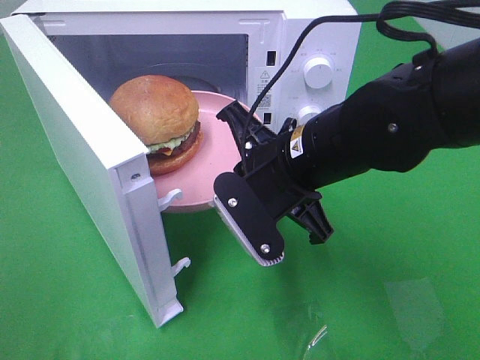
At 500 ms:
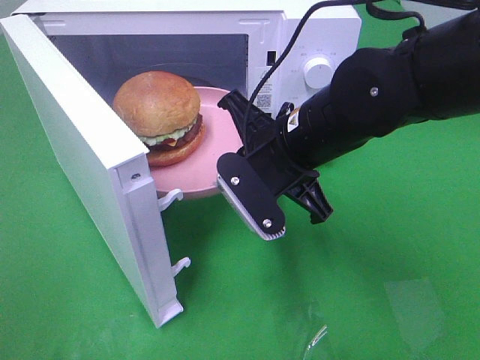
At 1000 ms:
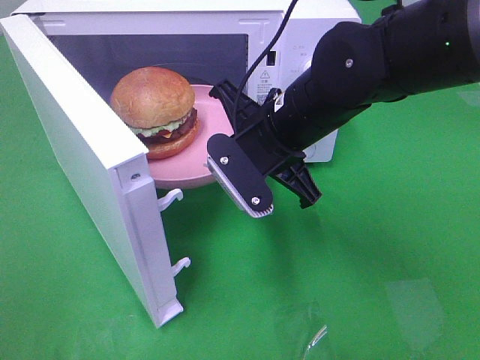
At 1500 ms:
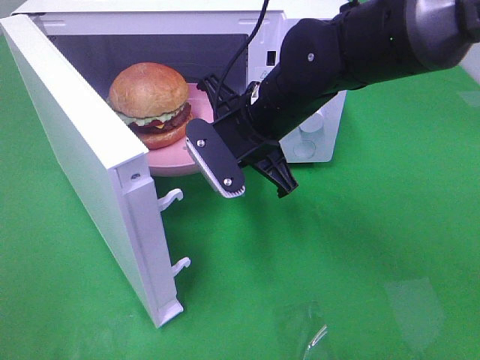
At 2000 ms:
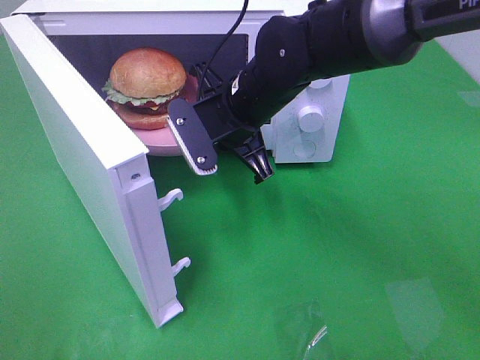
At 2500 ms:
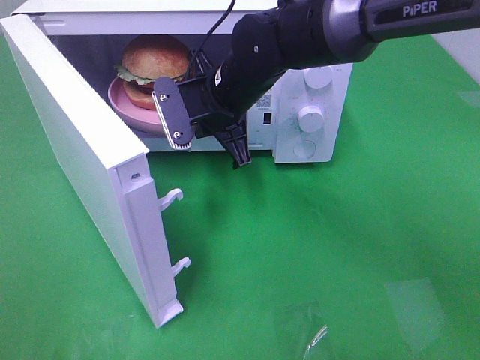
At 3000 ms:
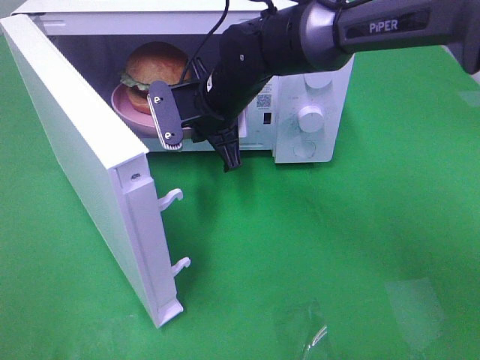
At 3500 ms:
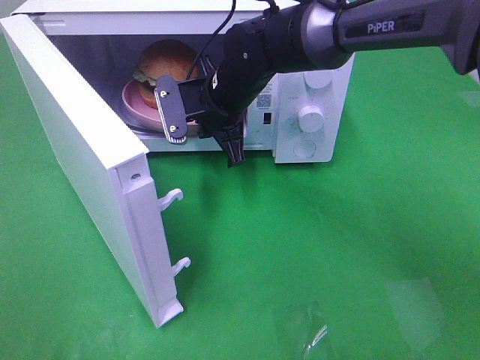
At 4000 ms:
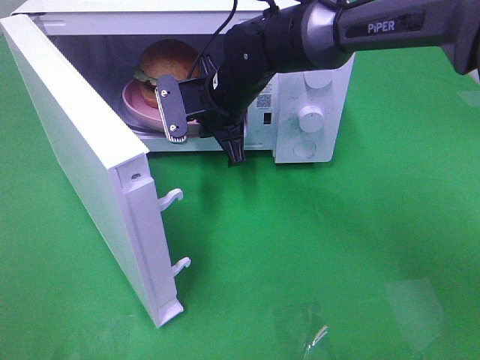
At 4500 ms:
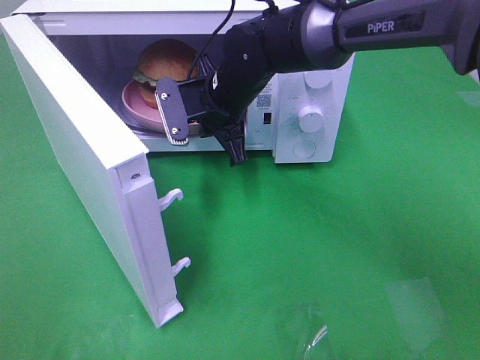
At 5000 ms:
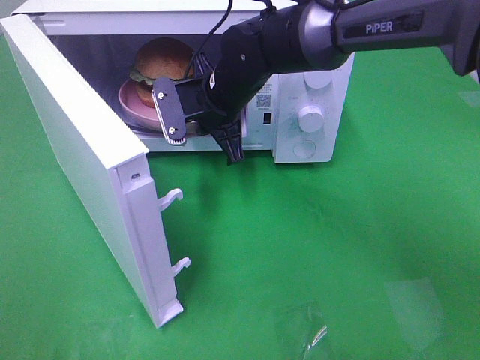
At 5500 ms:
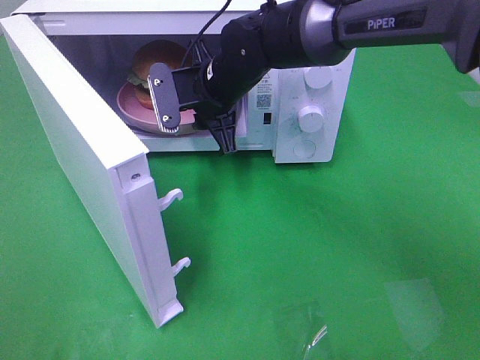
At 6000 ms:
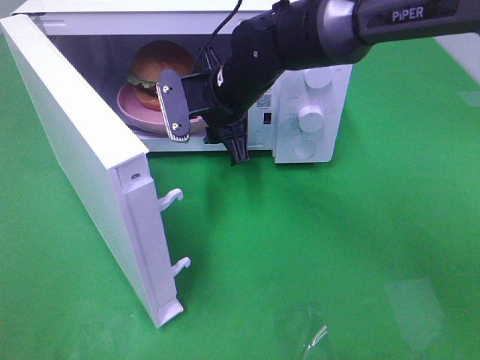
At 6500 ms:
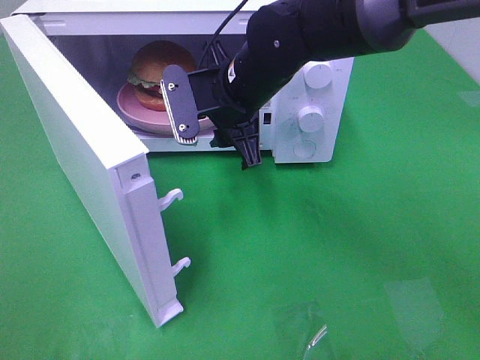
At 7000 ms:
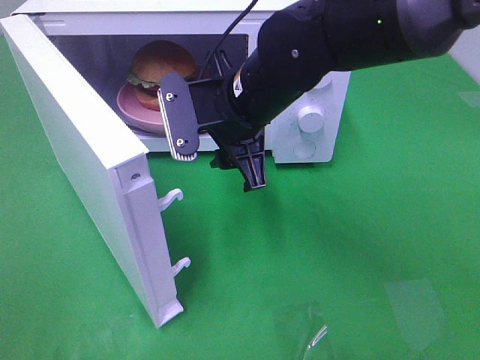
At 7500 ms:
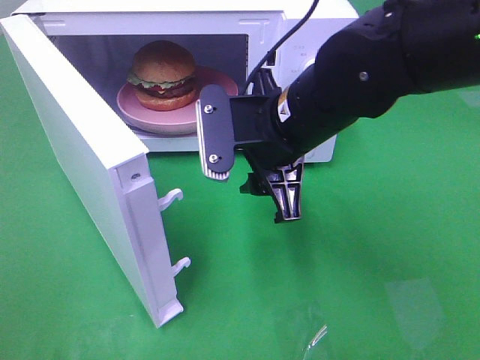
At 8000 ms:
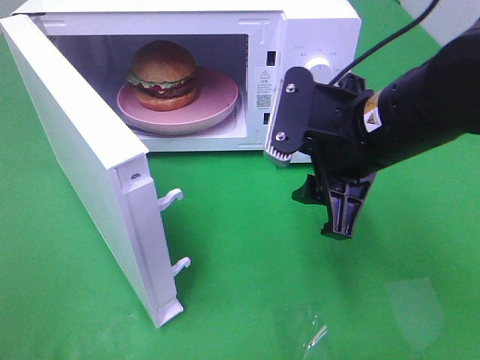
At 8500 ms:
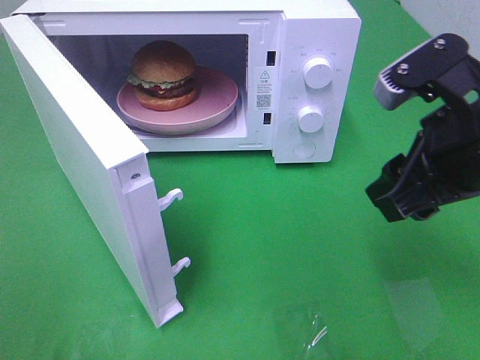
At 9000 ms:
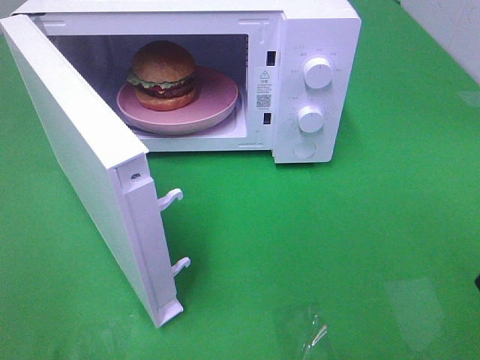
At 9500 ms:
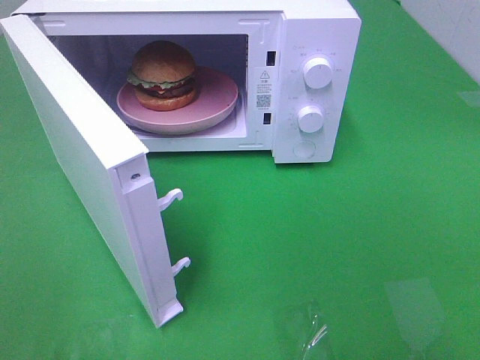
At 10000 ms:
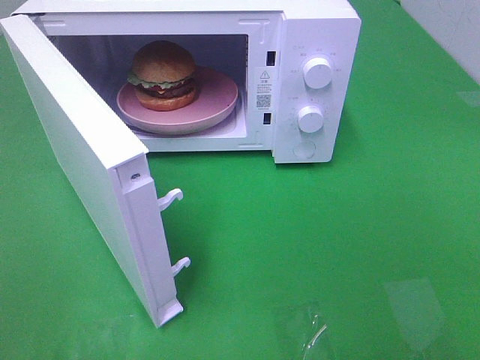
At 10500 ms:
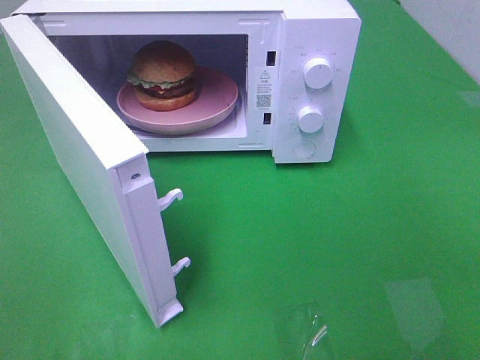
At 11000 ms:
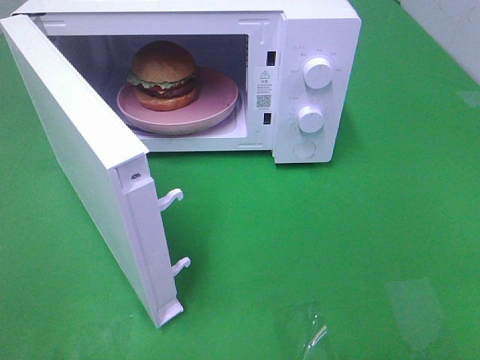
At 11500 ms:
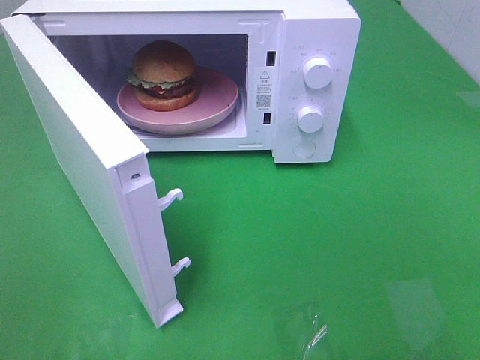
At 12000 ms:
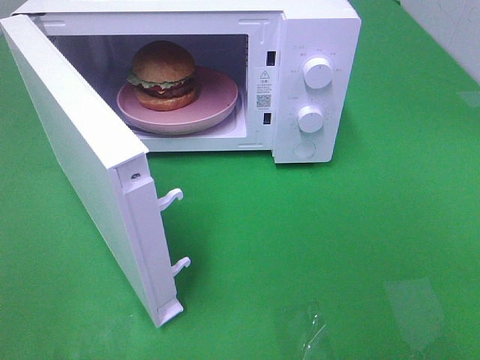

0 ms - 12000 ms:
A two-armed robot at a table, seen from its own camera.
Task of the whole recording: Heat the burger.
Step, 0 ms - 5000 ms: Right hand: place the plate in the microwave.
0 ms - 2000 ms: The right gripper heads forward, covering approximately 10 cm.
2000 ms - 4000 ms: The right gripper goes some 5 cm forward.
4000 ms - 6000 ms: The right gripper opens its fingers.
6000 ms - 8000 ms: The right gripper heads backward and to the right, covering roughly 20 cm.
8000 ms - 10000 ms: The right gripper goes about 30 cm backward and to the right.

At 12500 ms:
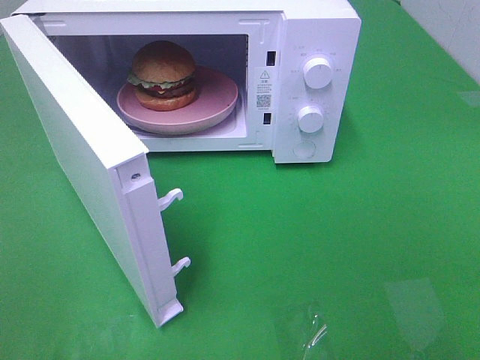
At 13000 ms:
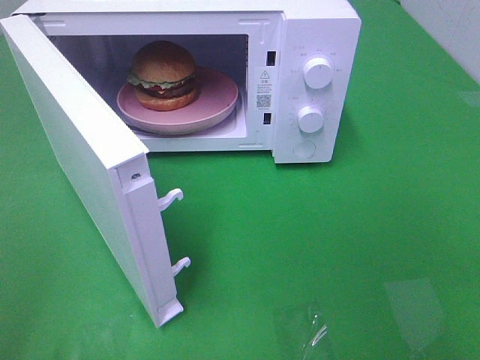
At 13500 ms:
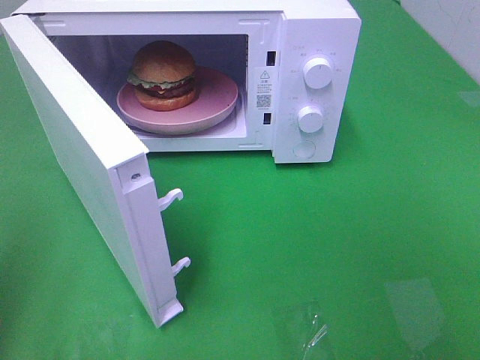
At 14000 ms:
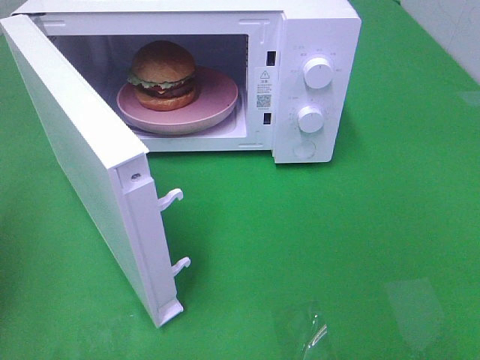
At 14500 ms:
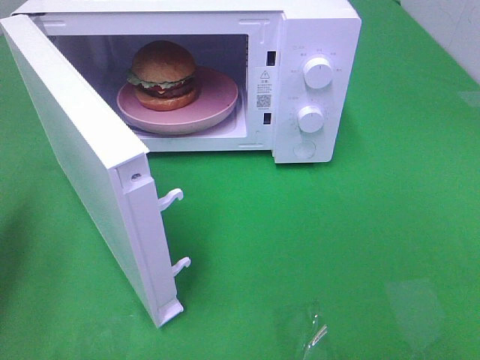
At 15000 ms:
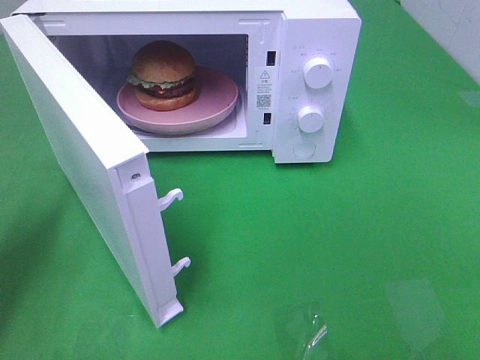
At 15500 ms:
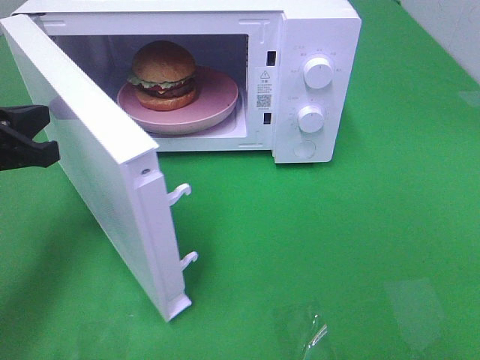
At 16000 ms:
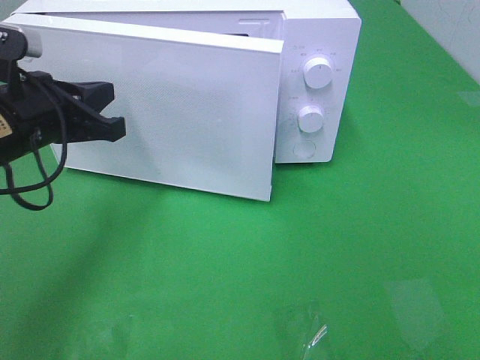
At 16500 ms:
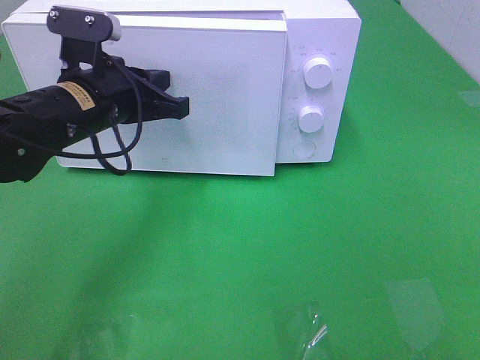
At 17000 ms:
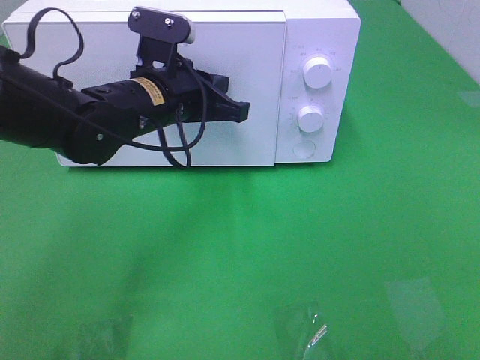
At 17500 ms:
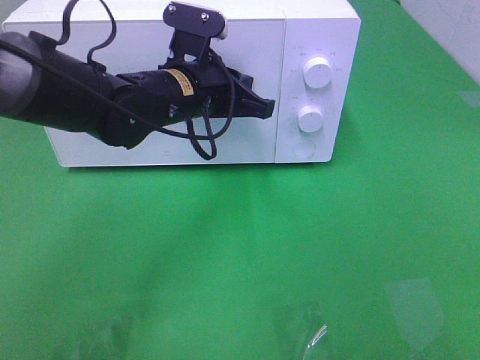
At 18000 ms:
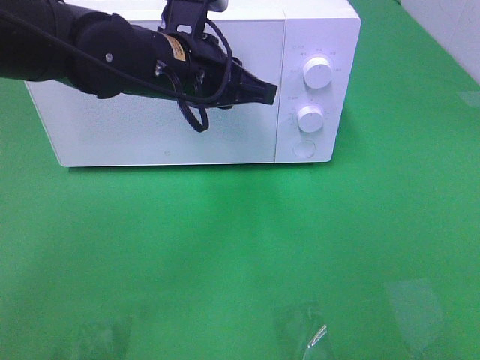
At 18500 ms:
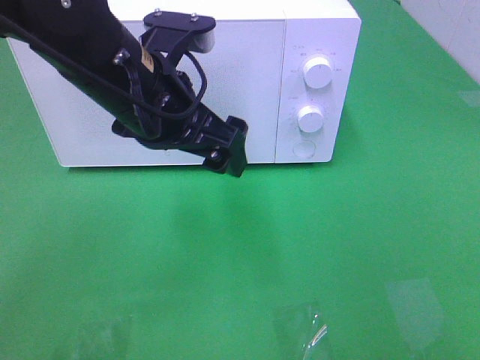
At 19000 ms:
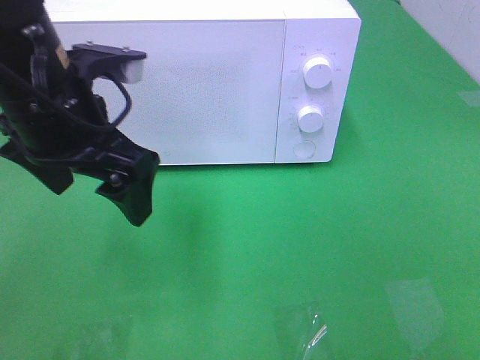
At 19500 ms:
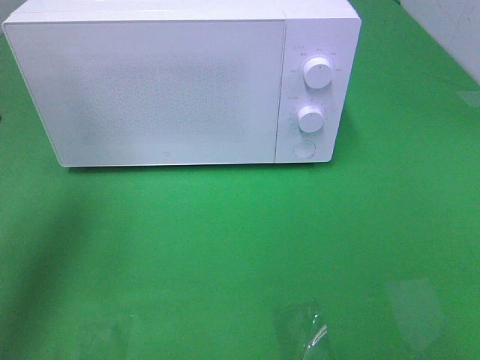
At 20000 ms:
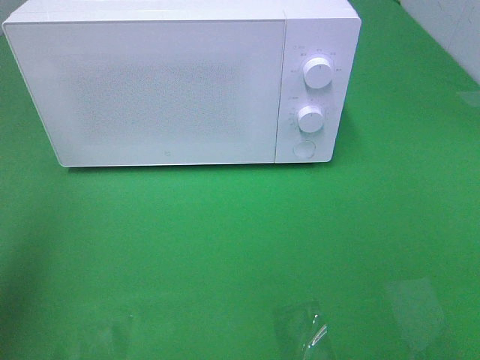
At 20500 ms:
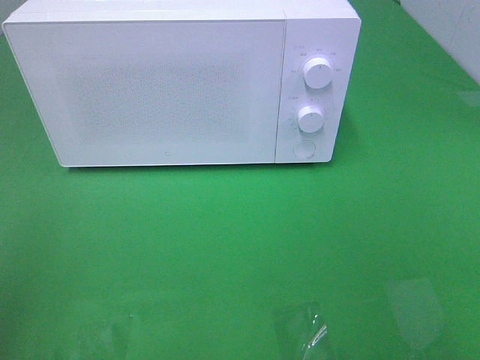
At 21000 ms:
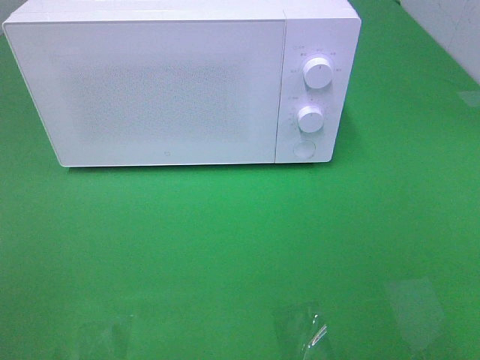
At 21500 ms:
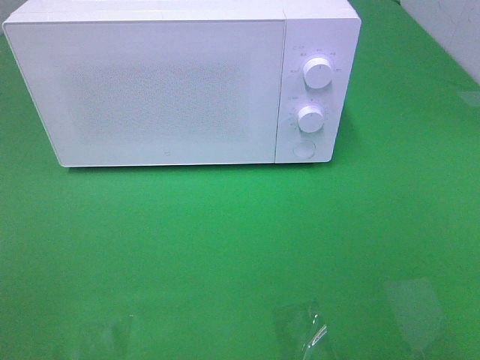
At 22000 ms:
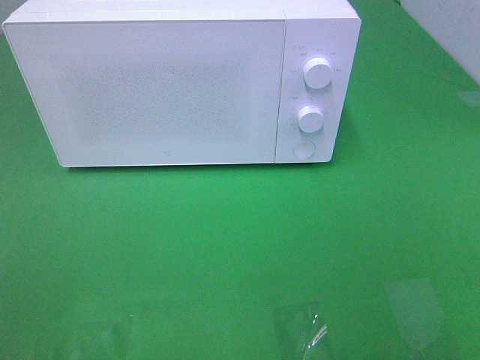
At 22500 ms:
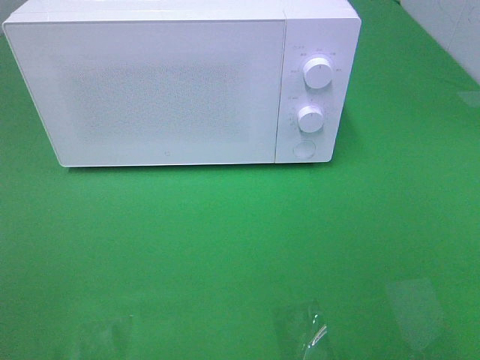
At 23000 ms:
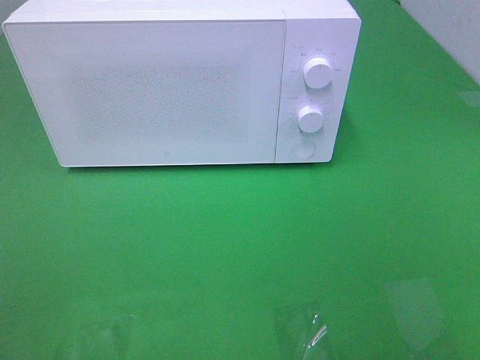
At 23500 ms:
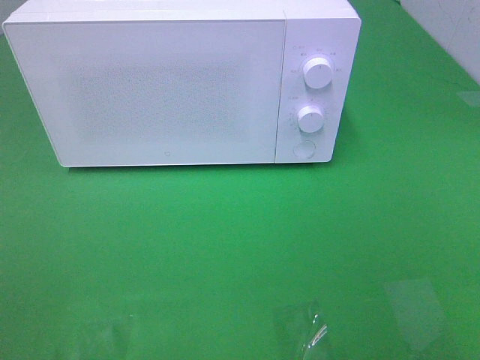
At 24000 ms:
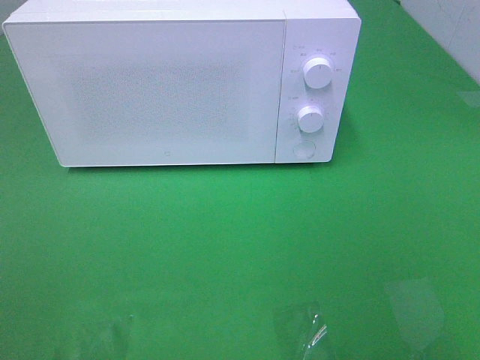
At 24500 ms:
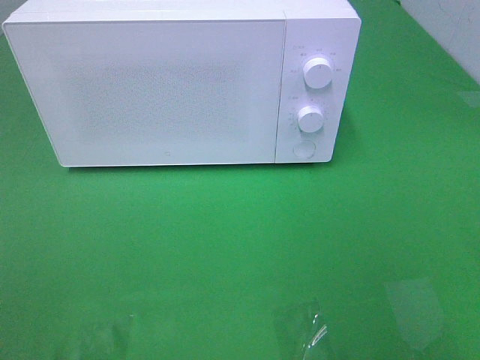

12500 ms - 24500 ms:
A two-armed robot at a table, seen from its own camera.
Task of the whole recording: Heat the burger.
Step, 12500 ms - 17000 ms: Left hand: close the microwave door.
12500 ms - 14500 ms: The left gripper goes some 20 cm forward, and closes its fingers.
14500 ms - 16500 ms: The left gripper moves to the right and forward, some 20 cm.
16500 ms - 18500 ms: The left gripper moves to the right, upward and backward, about 10 cm, and opens.
18500 ms - 20500 ms: The left gripper goes some 30 cm to the left and backward.

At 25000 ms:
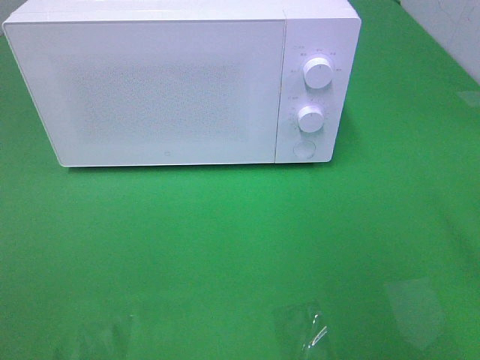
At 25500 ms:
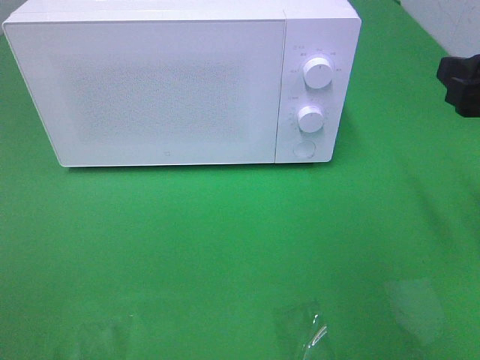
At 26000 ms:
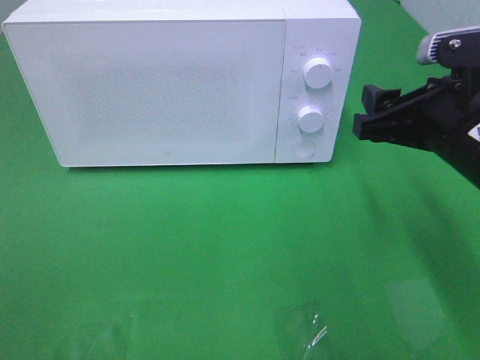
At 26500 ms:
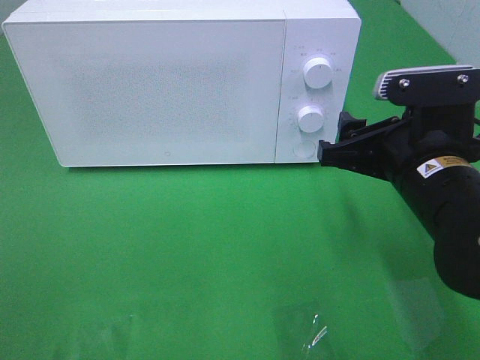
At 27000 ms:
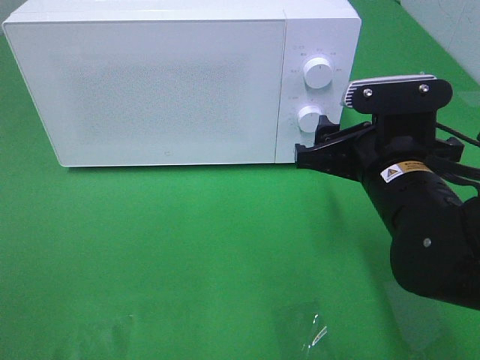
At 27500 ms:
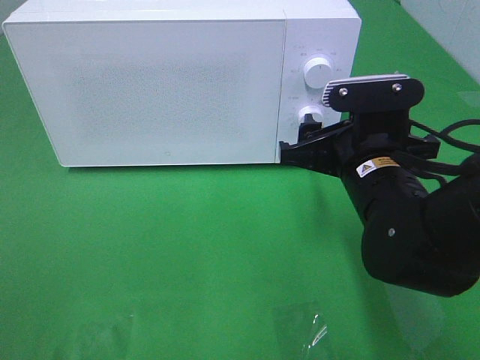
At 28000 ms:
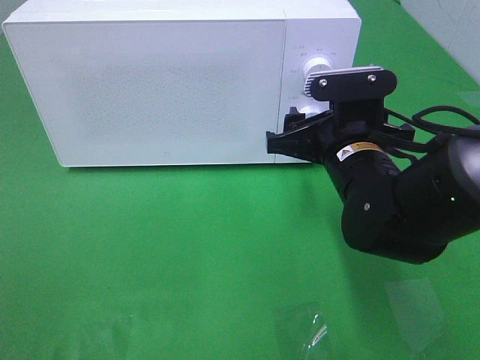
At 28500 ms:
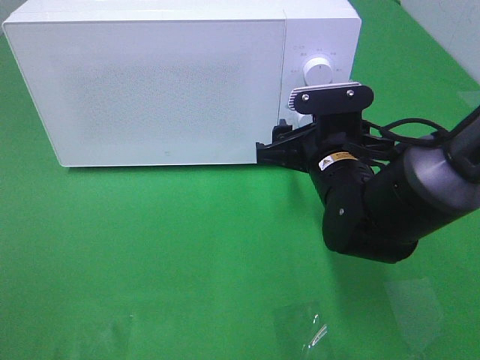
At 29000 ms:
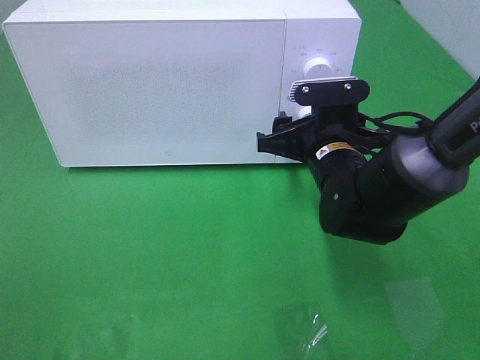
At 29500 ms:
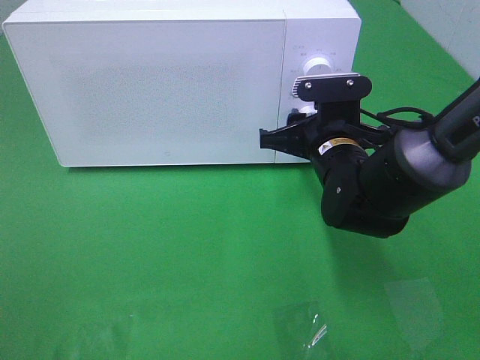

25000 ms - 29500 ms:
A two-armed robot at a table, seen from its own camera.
Task of the whole recording: Heat the burger.
25000 ms - 27000 ms: The right gripper heads downward, to the left and forward, covering about 20 cm.
27000 ms - 29500 ms: The right gripper moves forward, about 10 cm, and closes its fingers.
